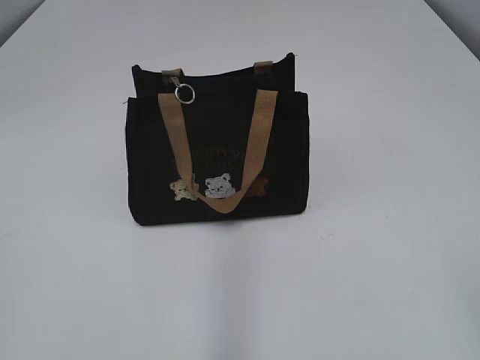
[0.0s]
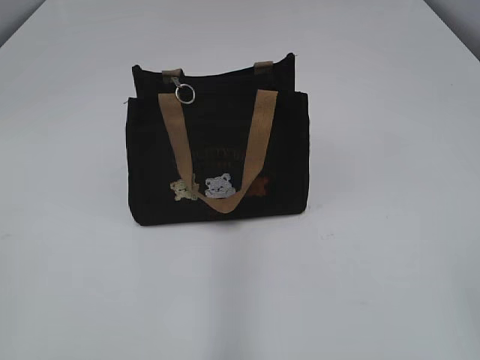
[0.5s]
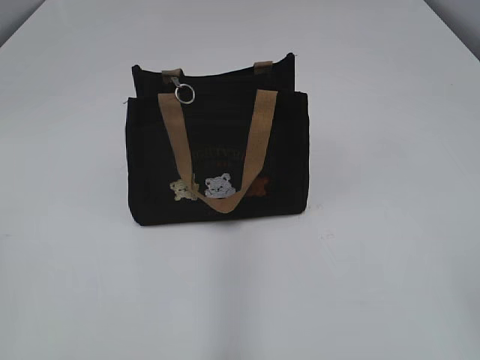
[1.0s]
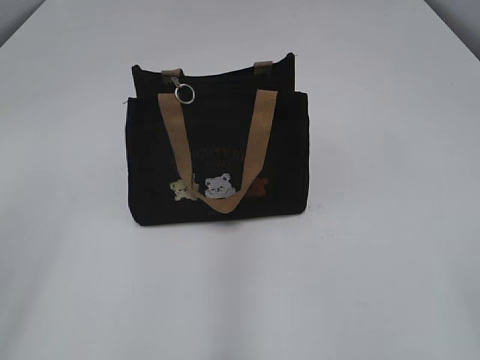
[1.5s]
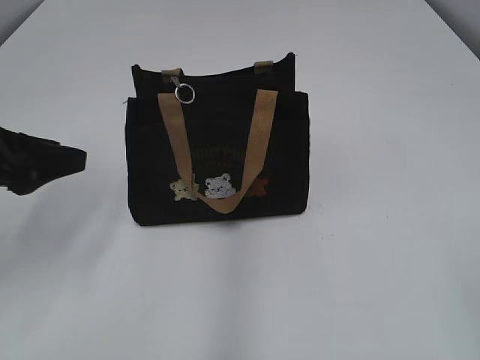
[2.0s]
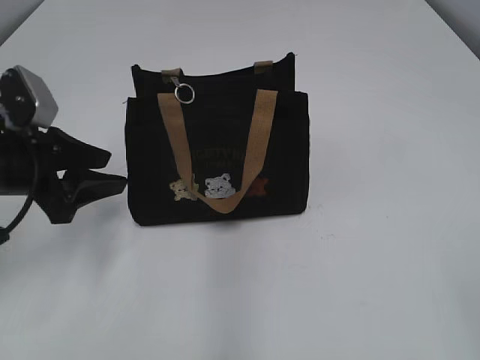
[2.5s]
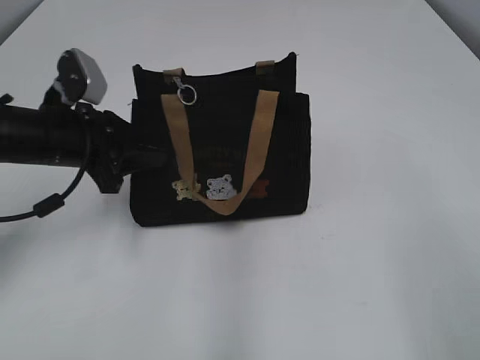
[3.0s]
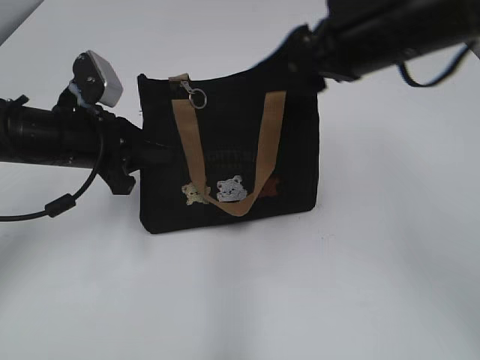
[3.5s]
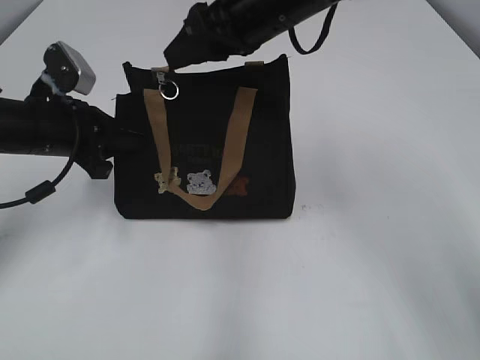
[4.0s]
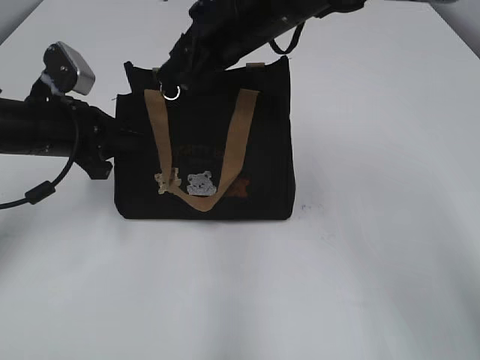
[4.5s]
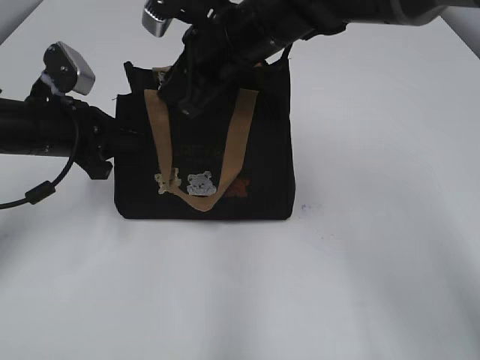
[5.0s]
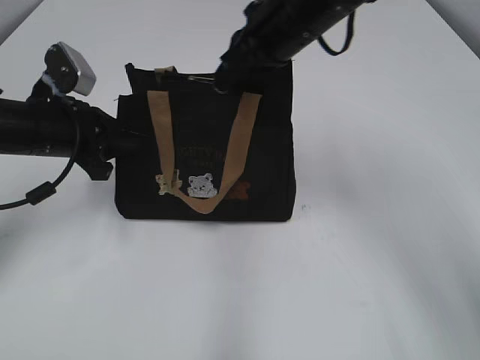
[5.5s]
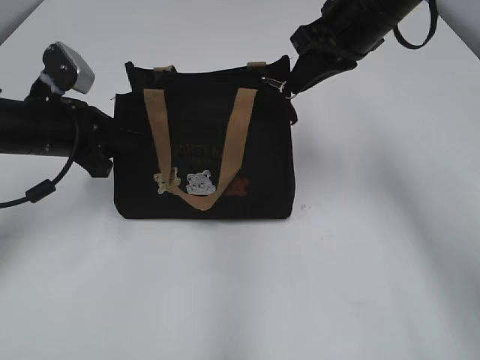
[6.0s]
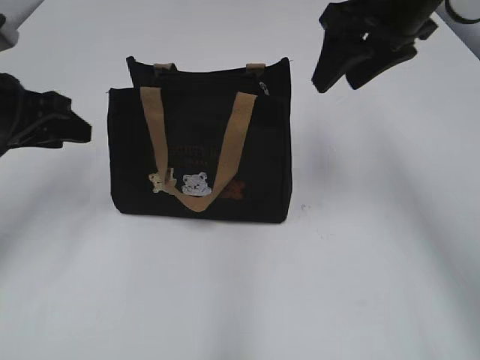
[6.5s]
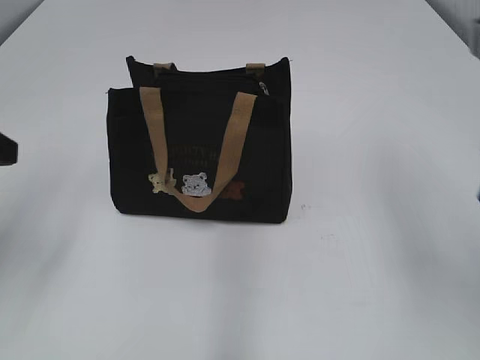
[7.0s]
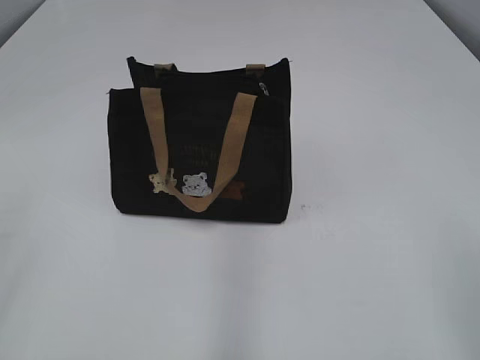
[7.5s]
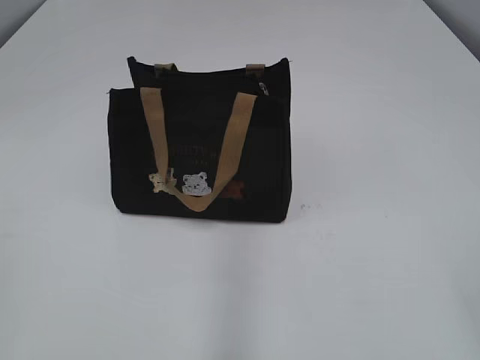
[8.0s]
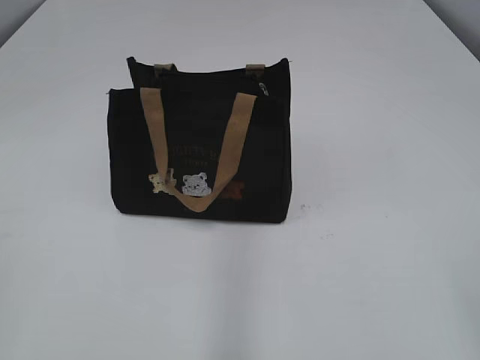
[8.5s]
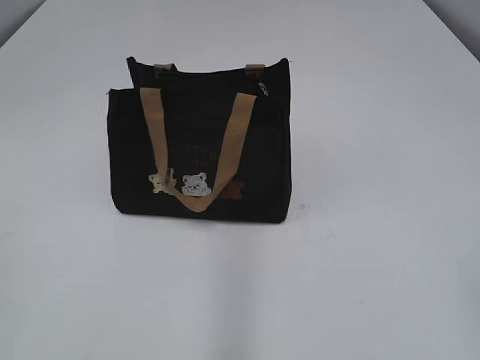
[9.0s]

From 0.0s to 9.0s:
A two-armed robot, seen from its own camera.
Step, from 0.0s to 6.0s: Pull open the zipper with your right hand.
From 2.0s to 4.5s: The right gripper shifts about 50 cm forward and to the left; the left gripper shifts roughly 10 cm forward and downward, and closes up.
From 4.5s to 7.0s: The left gripper goes approximately 15 cm backward and upward, and opens up; the right gripper goes approximately 25 cm to the right and backward, and closes, then opens again.
From 7.0s to 9.0s: The left gripper moves backward, roughly 25 cm.

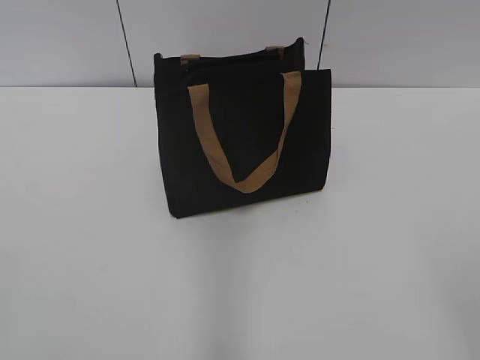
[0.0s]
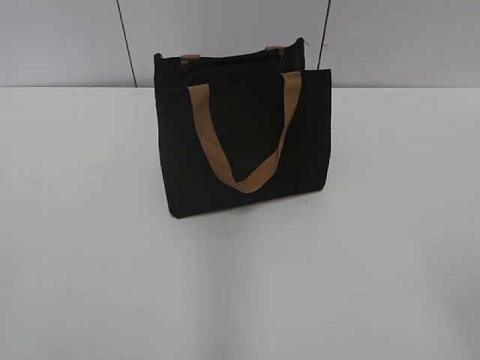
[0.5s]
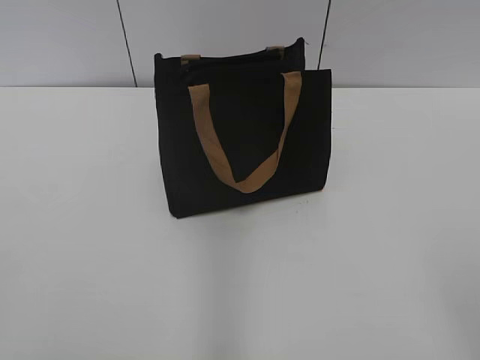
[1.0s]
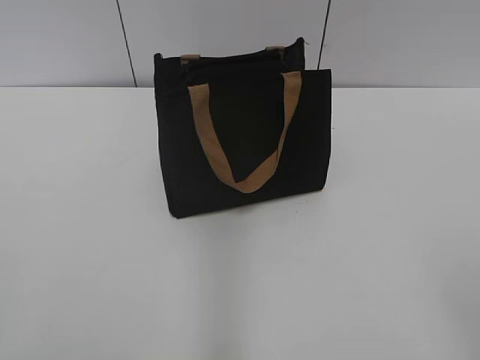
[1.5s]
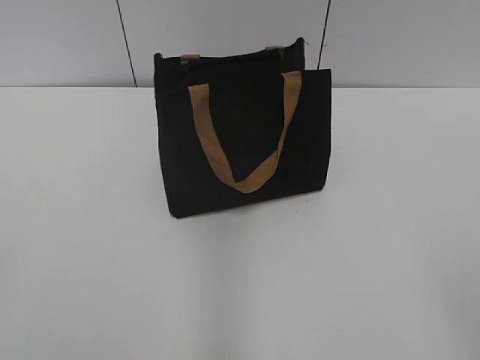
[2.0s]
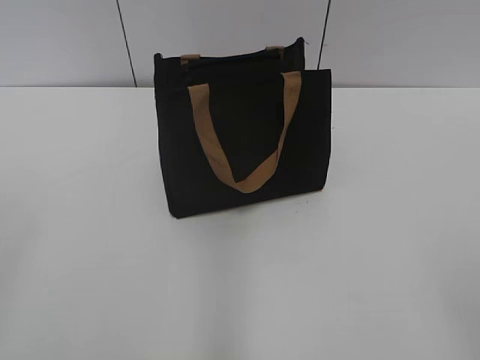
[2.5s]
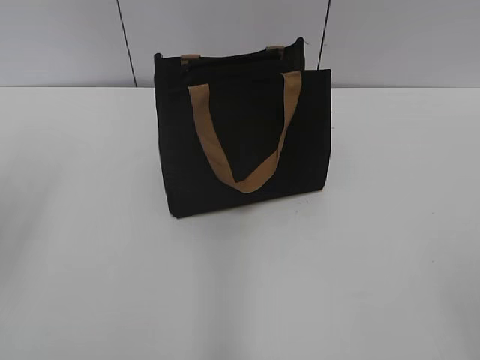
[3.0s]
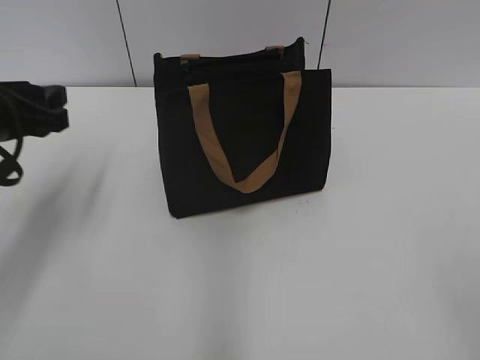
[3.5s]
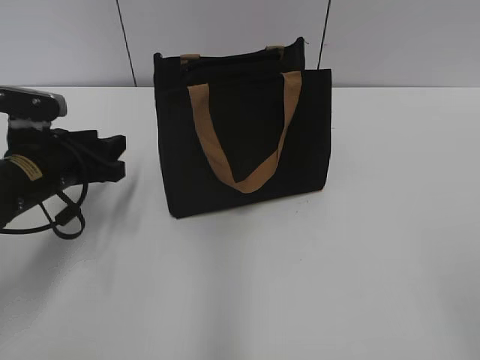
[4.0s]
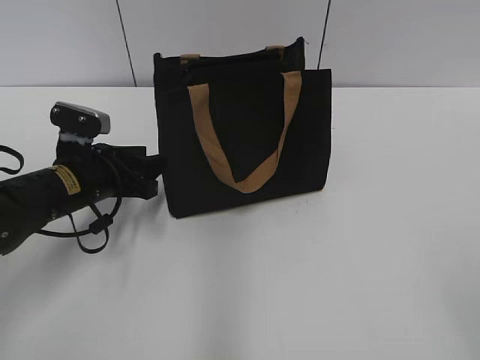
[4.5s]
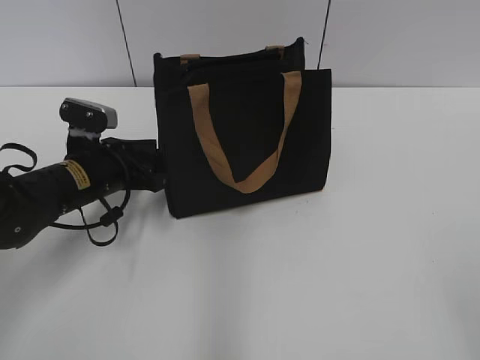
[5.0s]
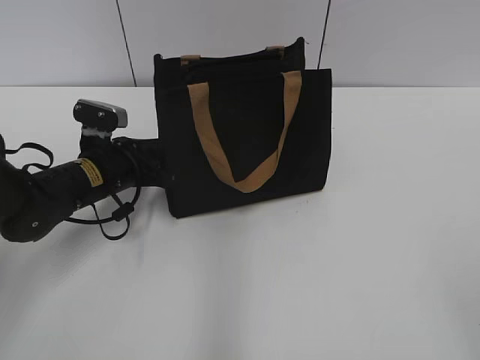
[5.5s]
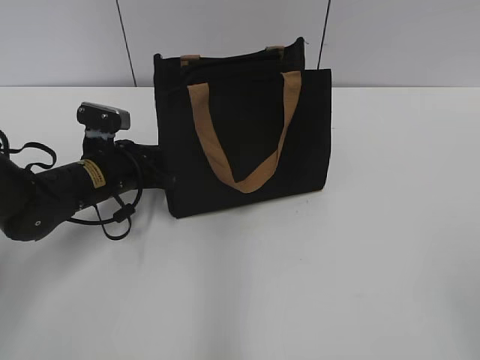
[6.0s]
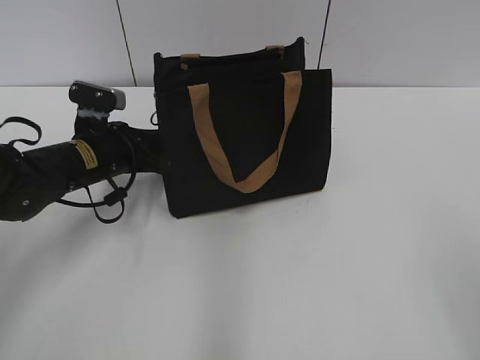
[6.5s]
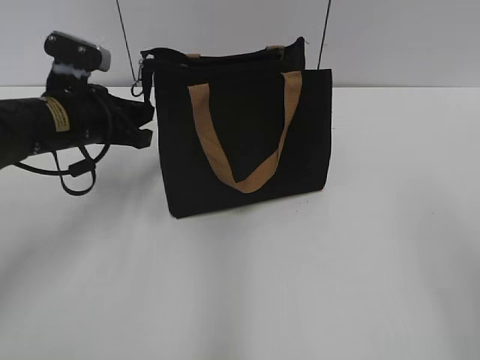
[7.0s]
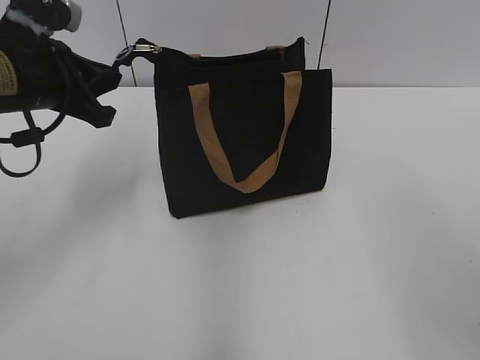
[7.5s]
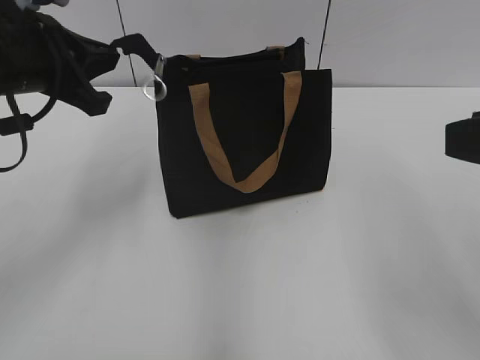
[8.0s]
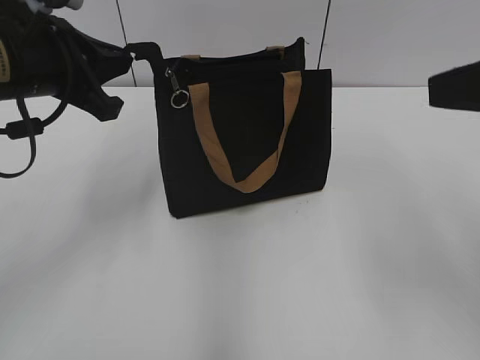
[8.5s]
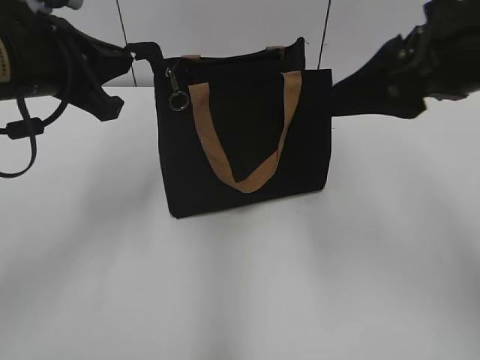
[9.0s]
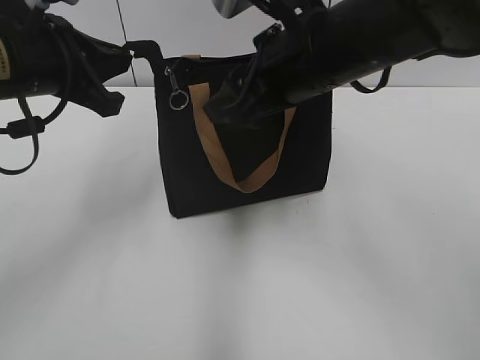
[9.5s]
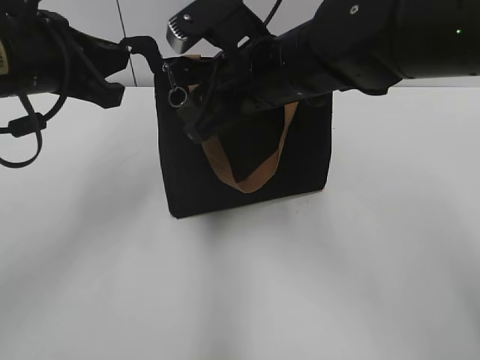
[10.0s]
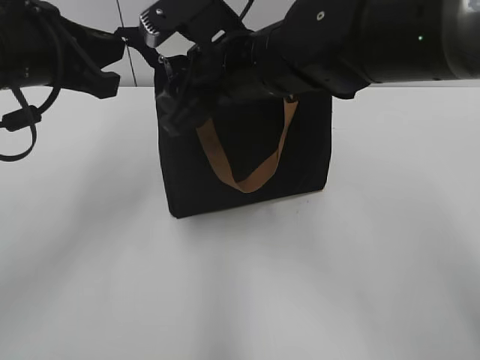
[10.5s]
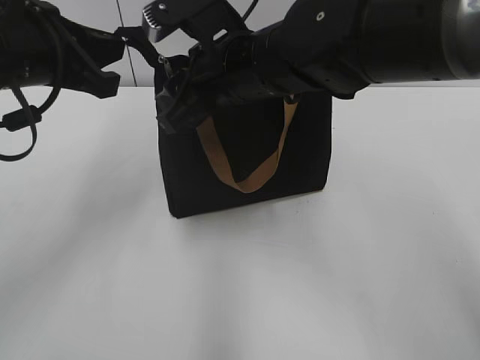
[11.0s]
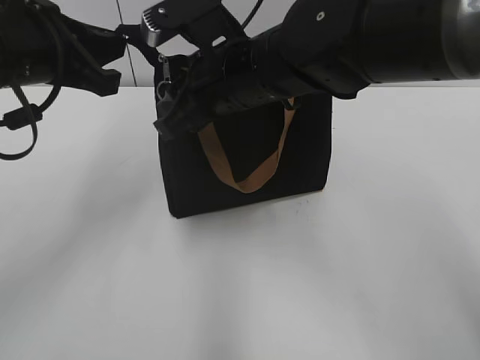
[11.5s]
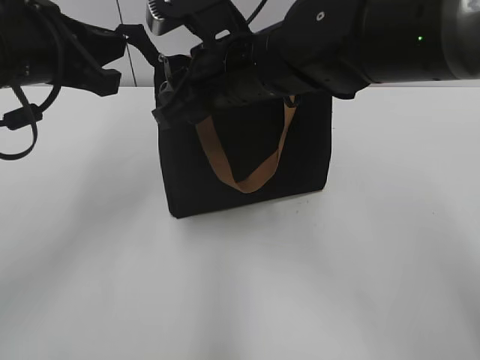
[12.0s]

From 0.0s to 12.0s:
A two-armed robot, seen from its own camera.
From 2.0s to 4.0s: The left gripper shifts approximately 35 cm forward and downward, and closes its fingers.
From 4.0s to 6.0s: The left gripper goes about 5 cm downward and to the right, and closes.
From 6.0s to 8.0s: The right gripper travels forward by about 15 cm. Meanwhile the left gripper moves upward, some 20 cm.
From 8.0s to 10.0s: The right gripper travels to the left, forward and downward by approximately 30 cm.
From 10.0s to 12.0s: The grippers stay close to where they were, moving slightly.

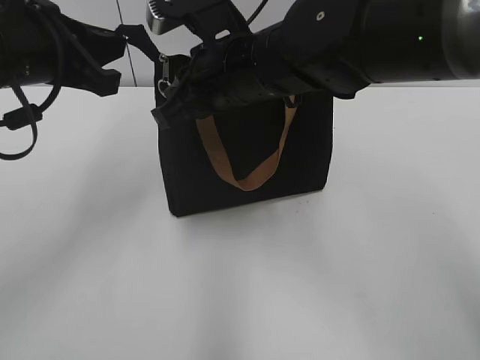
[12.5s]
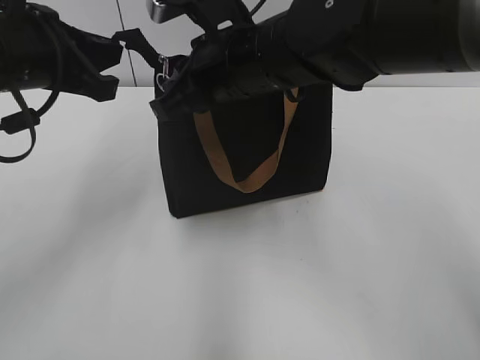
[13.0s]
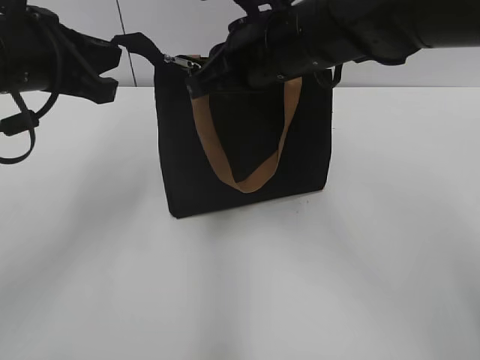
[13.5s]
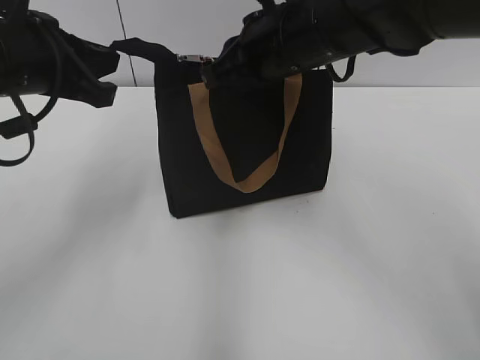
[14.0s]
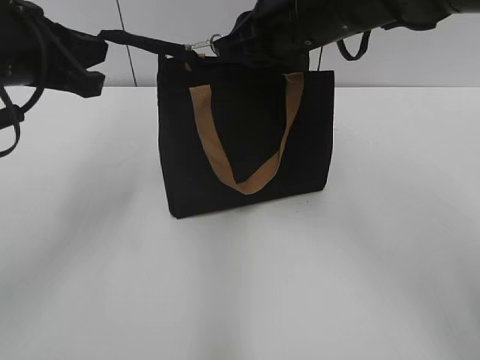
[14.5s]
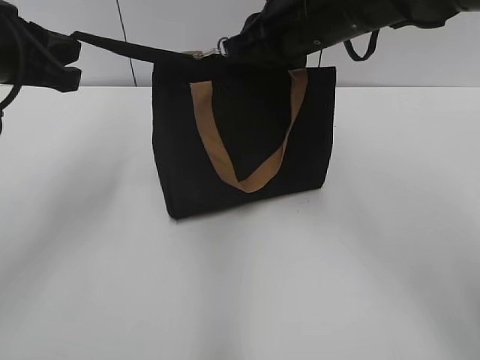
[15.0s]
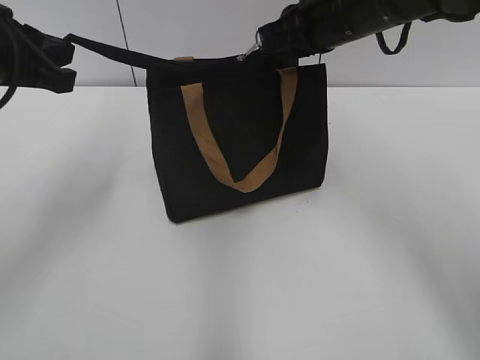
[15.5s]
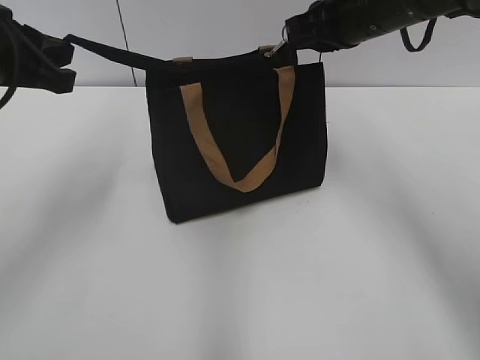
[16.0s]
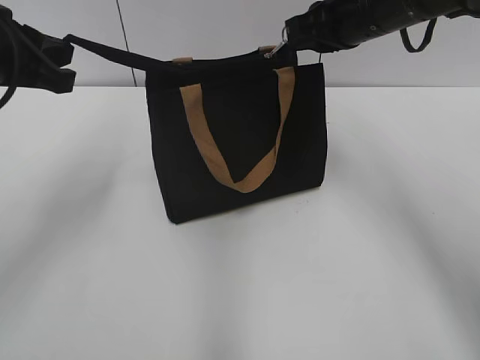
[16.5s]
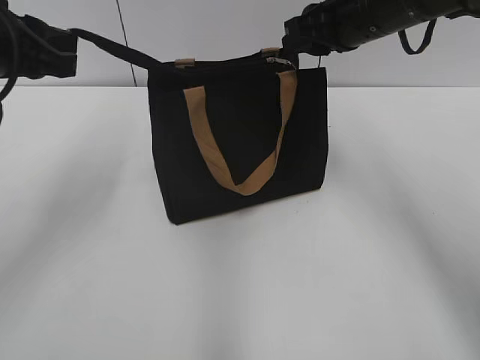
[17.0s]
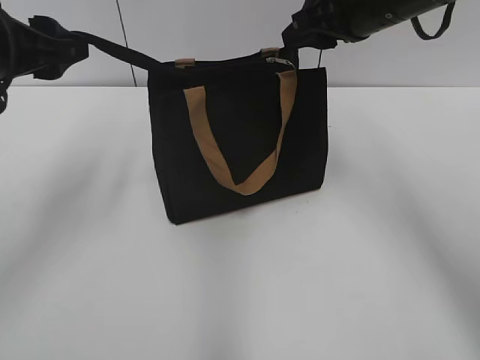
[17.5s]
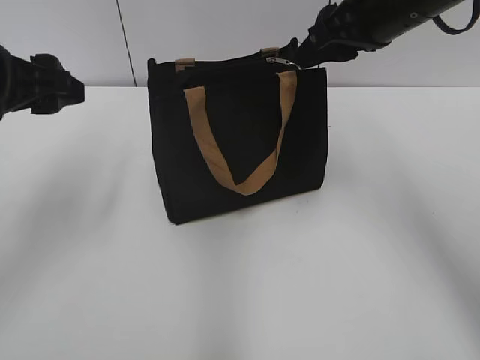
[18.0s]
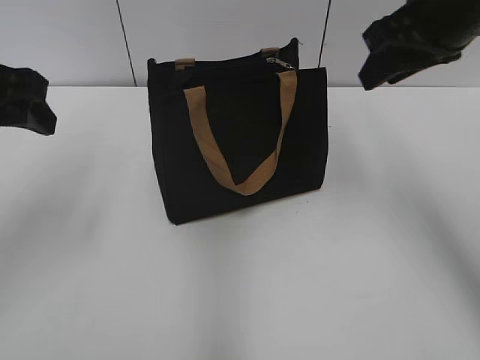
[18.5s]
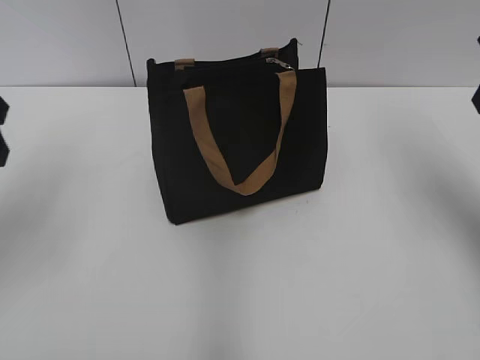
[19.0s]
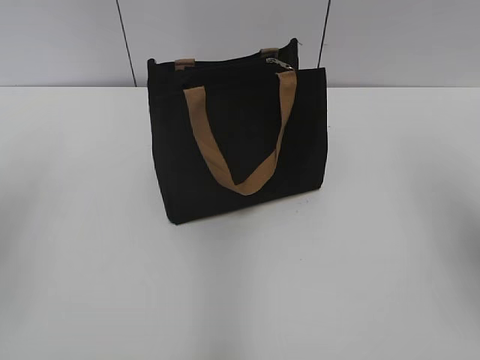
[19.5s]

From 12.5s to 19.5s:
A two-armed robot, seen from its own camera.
Step, from 12.5s to 17.0s: Zip up the bag with your right hand.
From 12.5s to 14.5s: The right gripper goes approximately 5 cm to the right.
From 14.5s to 16.0s: The right gripper moves to the right, approximately 5 cm.
From 16.0s to 17.5s: The right gripper opens. Meanwhile the left gripper opens.
From 17.5s to 19.5s: The right gripper moves backward and to the right, approximately 20 cm; the left gripper goes about 10 cm backward and to the left.
